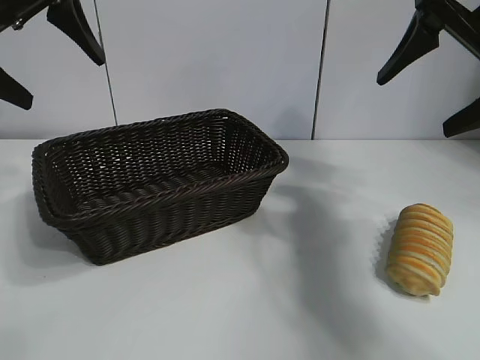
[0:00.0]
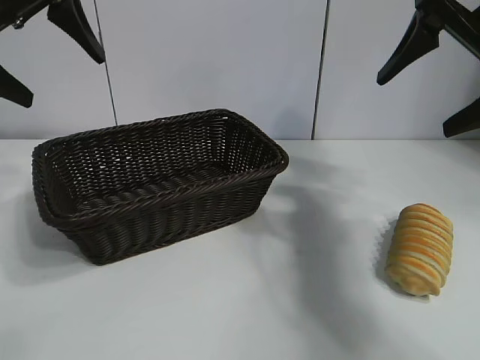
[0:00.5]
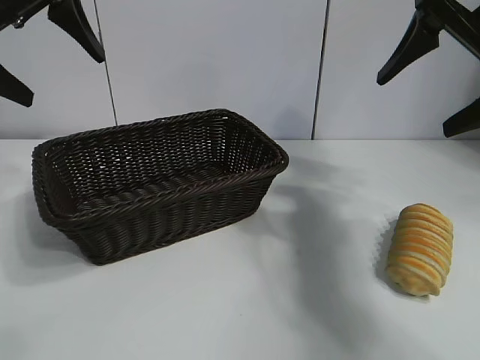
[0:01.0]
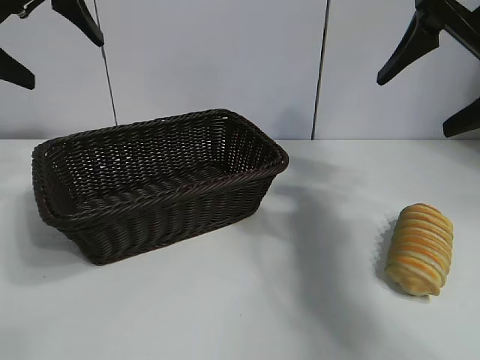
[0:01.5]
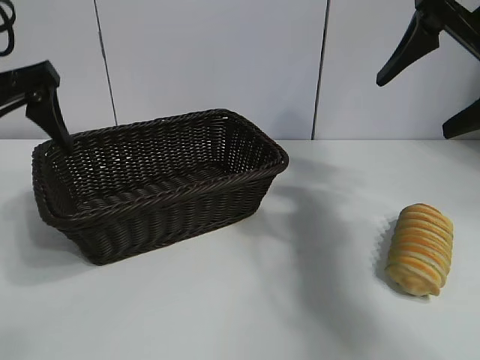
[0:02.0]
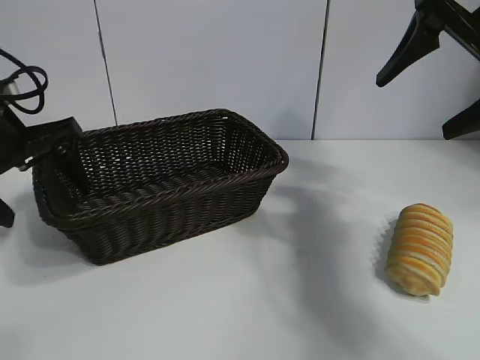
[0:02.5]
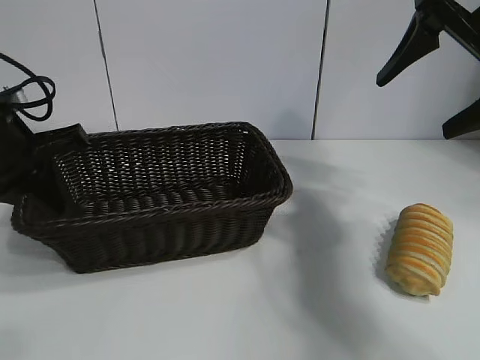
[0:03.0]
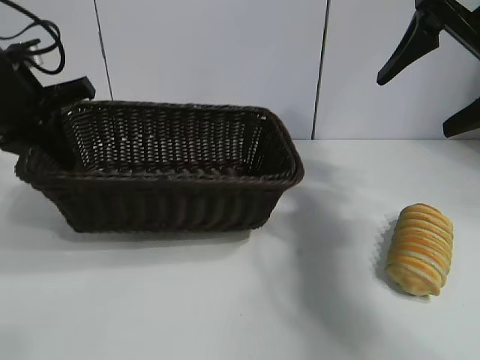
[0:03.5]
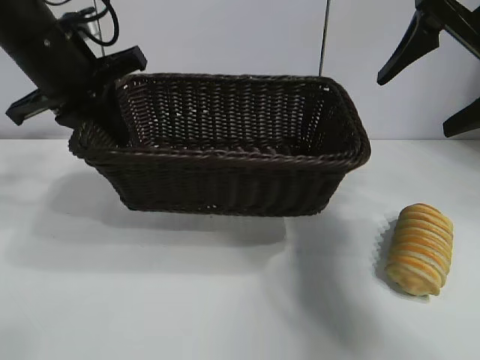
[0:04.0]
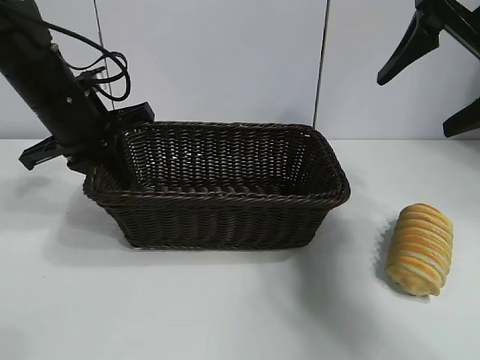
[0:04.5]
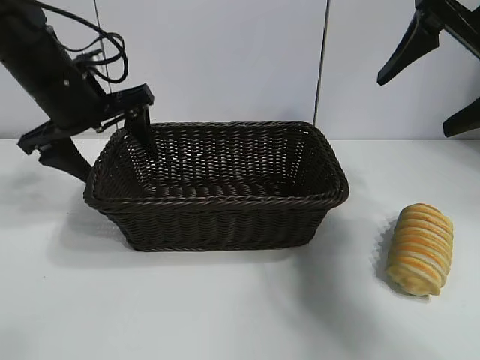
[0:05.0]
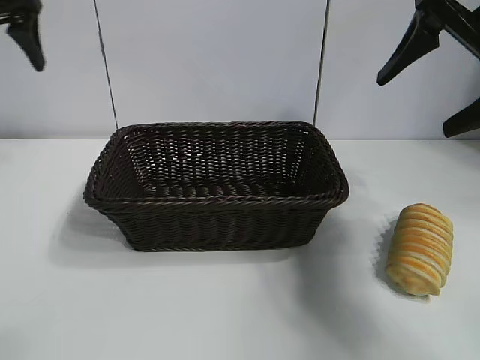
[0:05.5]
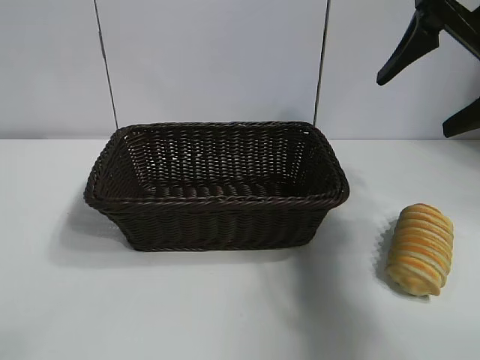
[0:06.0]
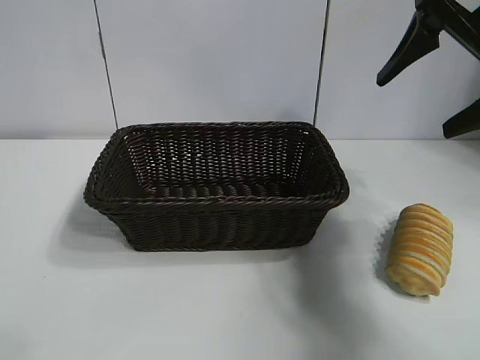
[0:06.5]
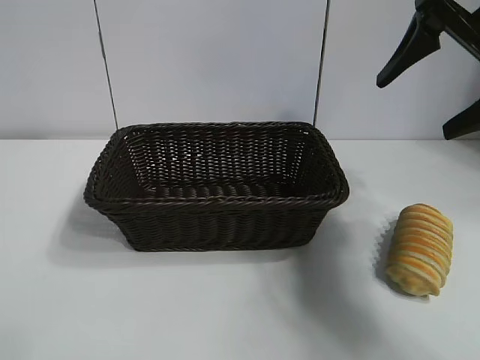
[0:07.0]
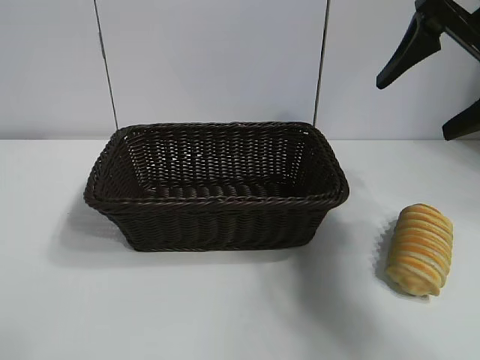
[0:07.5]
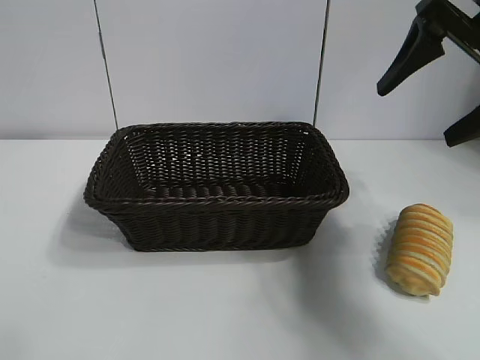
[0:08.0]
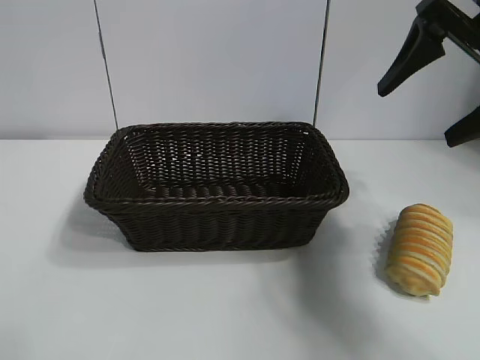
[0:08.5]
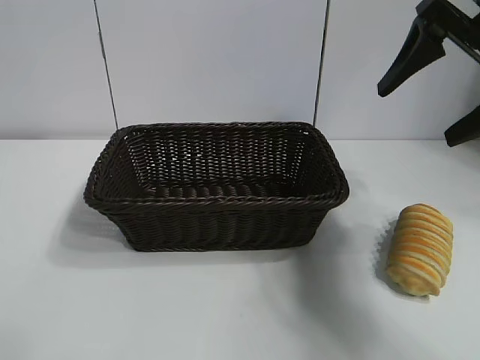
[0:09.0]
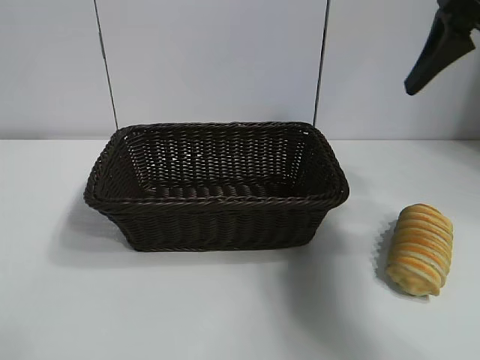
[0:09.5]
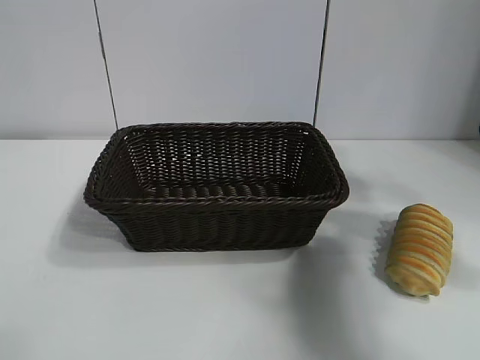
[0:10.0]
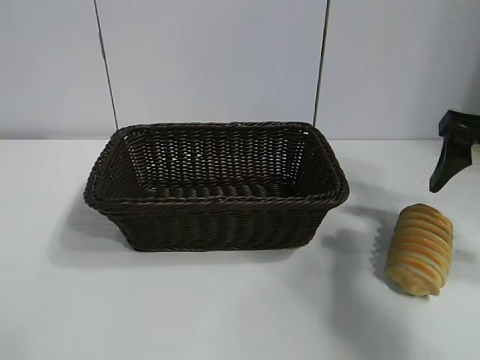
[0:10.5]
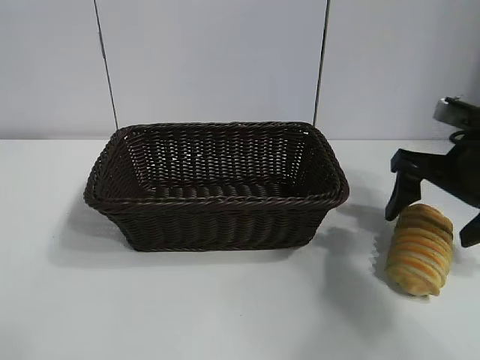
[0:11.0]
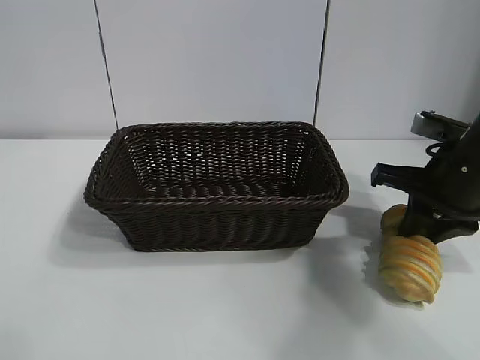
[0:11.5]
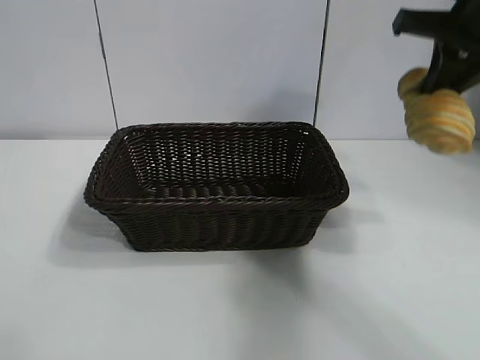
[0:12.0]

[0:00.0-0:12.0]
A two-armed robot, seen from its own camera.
Task of the whole recording: pick up the long bread and put it into the basket.
Step, 0:01.5 to 0:03.0: Grasp the basket with the left gripper.
Step, 0:03.5 to 0:04.5: Place the basket in the center of the table with the left gripper.
Step, 0:05.0 to 0:11.5: Grasp the long bread with right gripper.

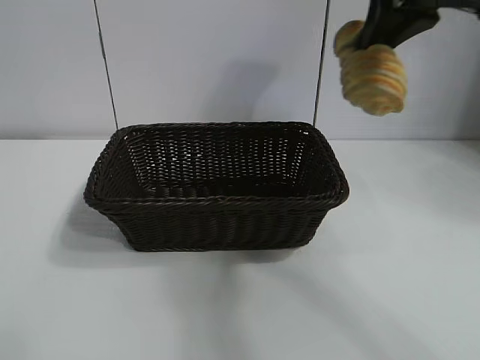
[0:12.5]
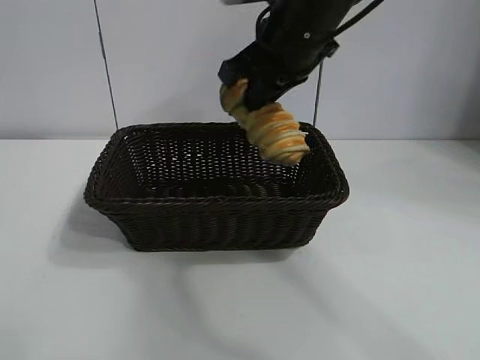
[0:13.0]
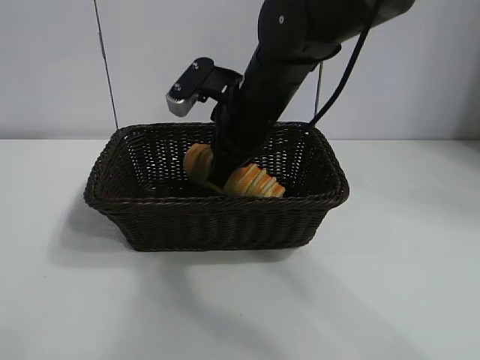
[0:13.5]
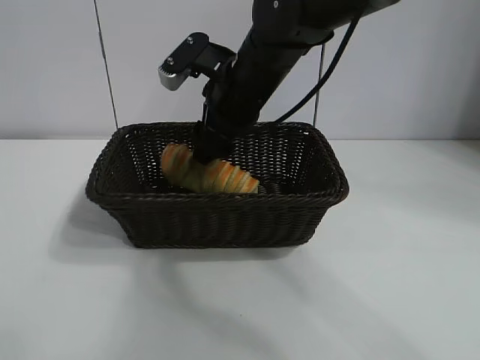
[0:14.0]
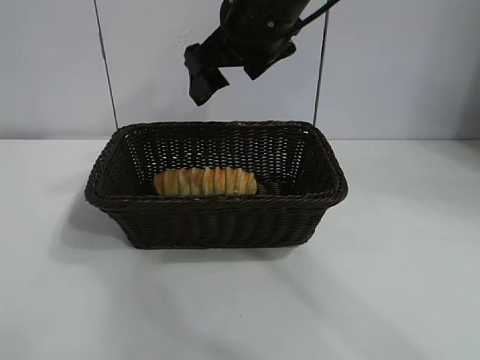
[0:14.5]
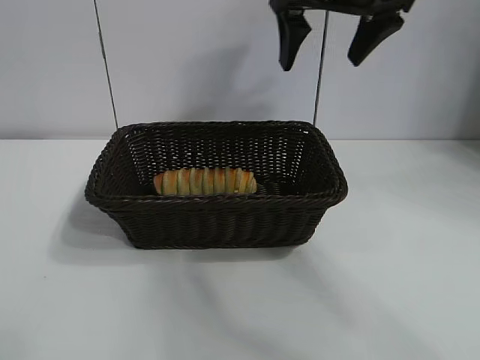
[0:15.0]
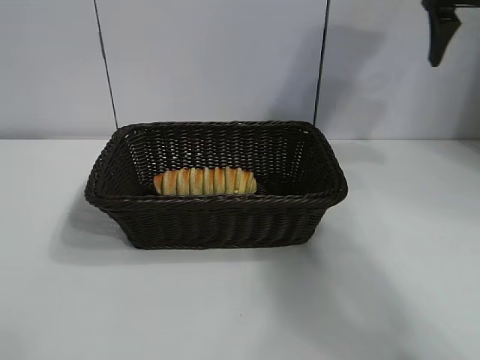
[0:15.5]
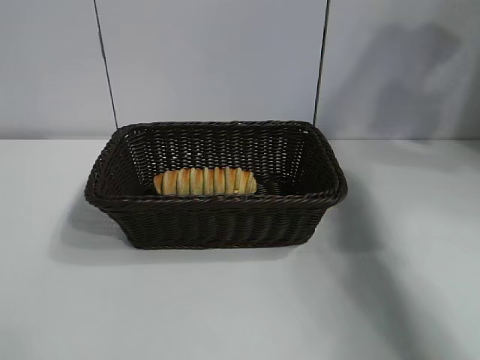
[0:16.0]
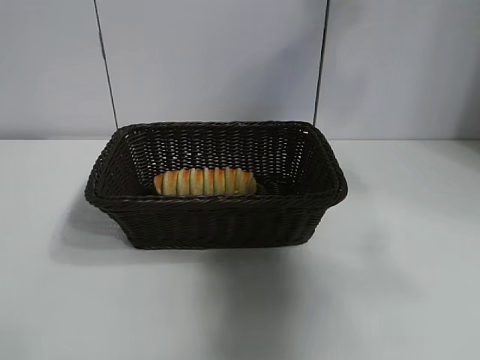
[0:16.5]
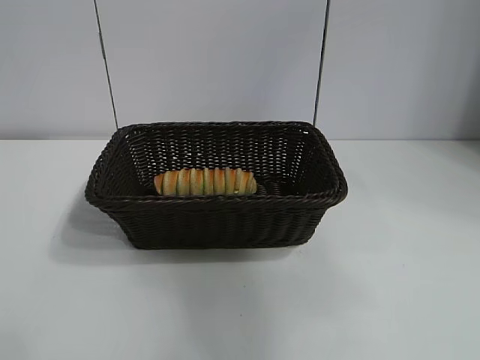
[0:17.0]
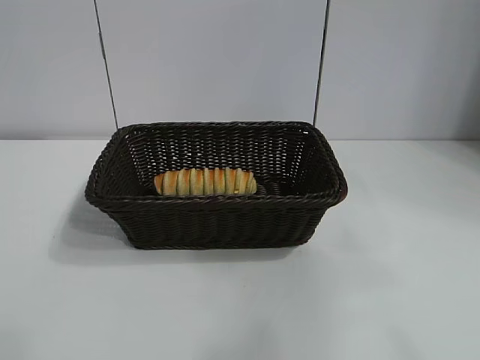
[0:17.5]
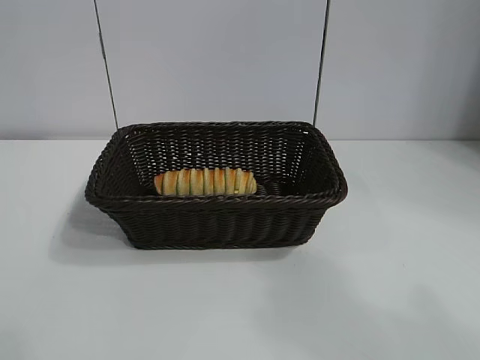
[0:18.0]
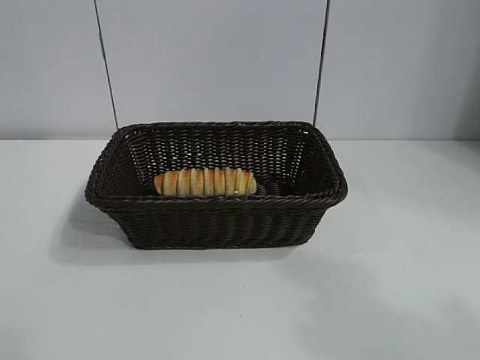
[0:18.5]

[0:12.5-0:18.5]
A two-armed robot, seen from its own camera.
Task of the whole recording: pick up the long bread and put it into the basket.
Step, 0:12.5 to 0:14.0: Place the long bread in the basket with right gripper.
